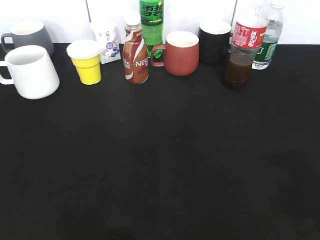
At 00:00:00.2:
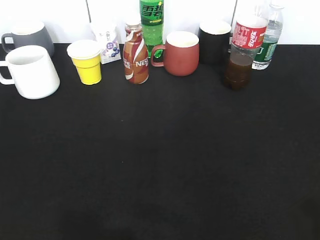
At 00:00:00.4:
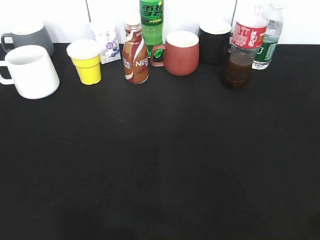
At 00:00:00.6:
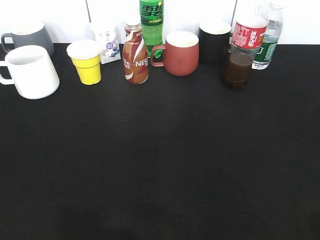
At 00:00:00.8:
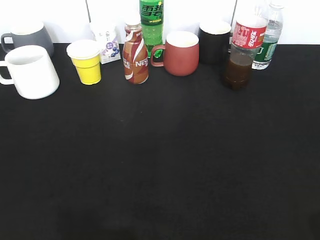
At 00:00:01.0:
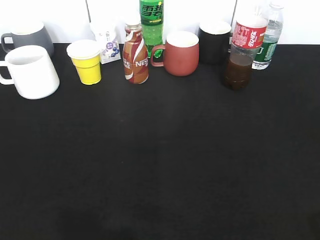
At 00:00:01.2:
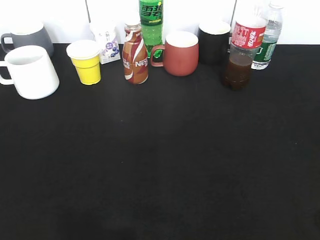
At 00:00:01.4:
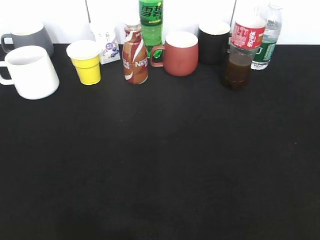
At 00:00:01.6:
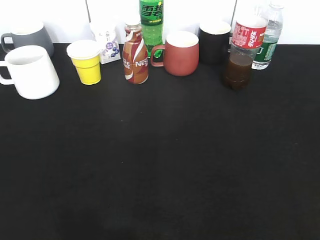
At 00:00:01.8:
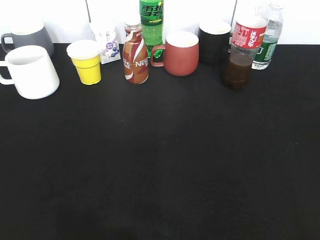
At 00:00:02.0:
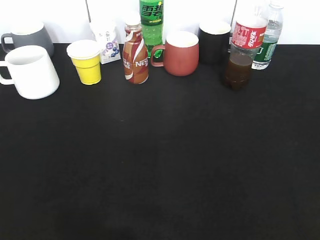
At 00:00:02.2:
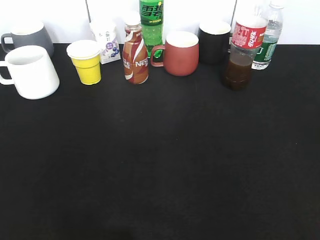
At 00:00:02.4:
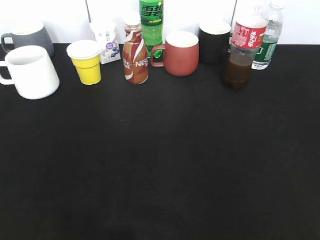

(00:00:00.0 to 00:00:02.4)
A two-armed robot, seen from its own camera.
00:00:00.0 - 00:00:01.2: The grippers both shift backward and downward by about 10 cm.

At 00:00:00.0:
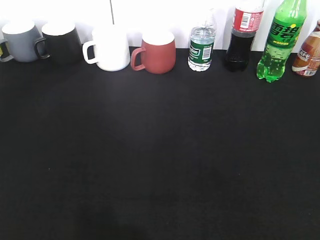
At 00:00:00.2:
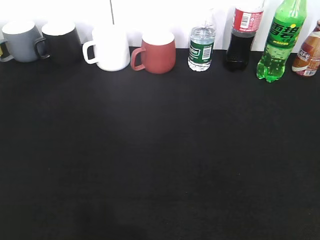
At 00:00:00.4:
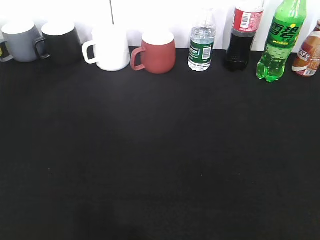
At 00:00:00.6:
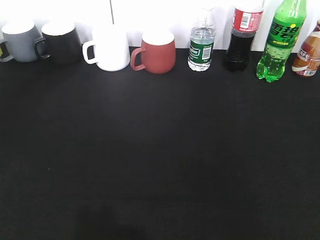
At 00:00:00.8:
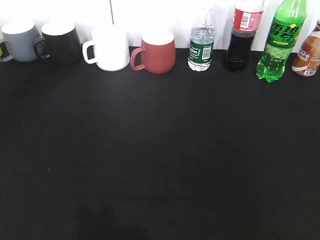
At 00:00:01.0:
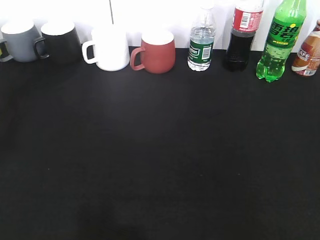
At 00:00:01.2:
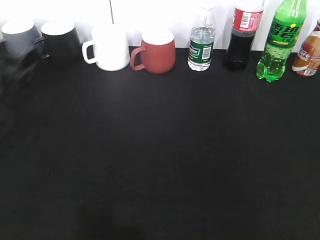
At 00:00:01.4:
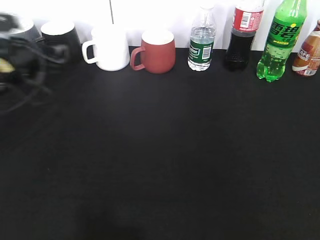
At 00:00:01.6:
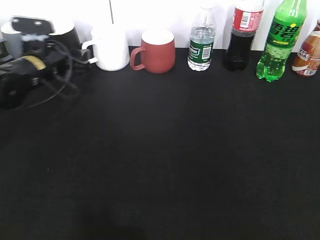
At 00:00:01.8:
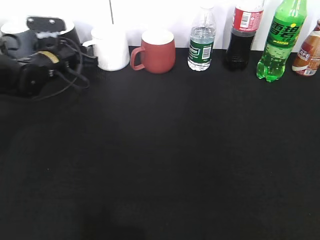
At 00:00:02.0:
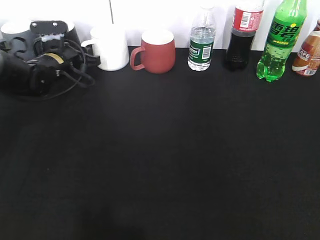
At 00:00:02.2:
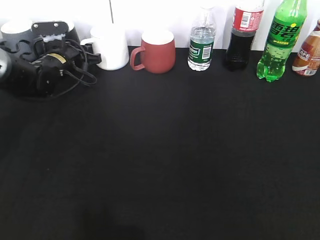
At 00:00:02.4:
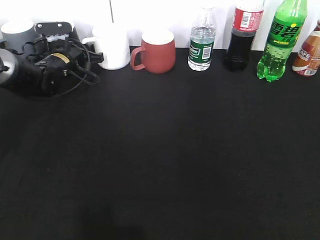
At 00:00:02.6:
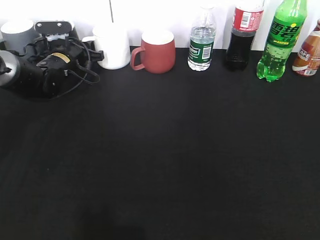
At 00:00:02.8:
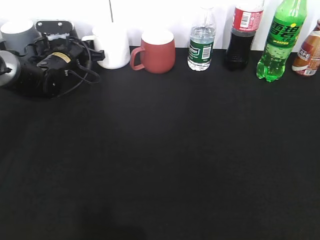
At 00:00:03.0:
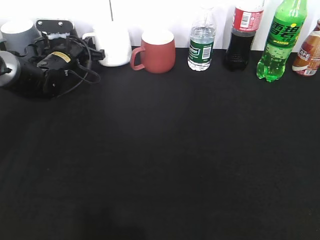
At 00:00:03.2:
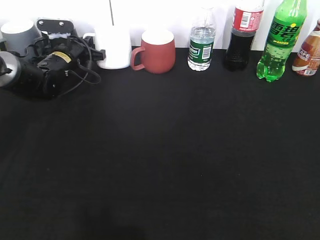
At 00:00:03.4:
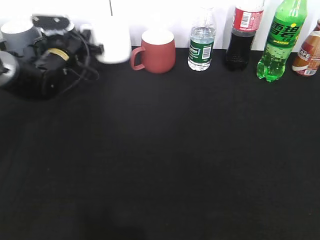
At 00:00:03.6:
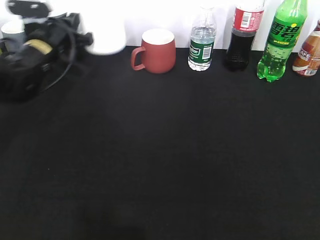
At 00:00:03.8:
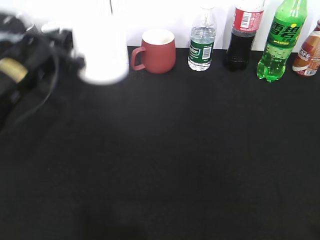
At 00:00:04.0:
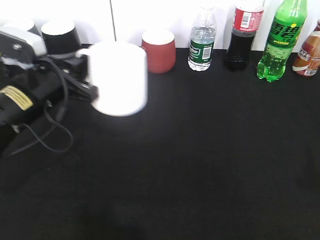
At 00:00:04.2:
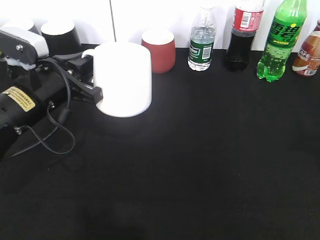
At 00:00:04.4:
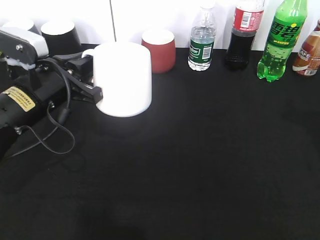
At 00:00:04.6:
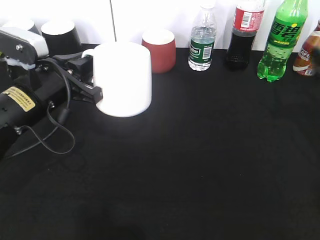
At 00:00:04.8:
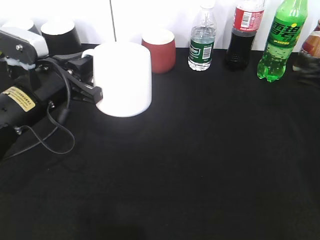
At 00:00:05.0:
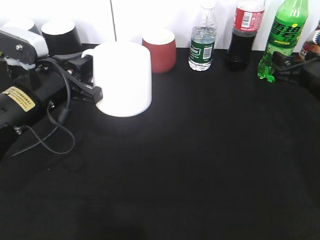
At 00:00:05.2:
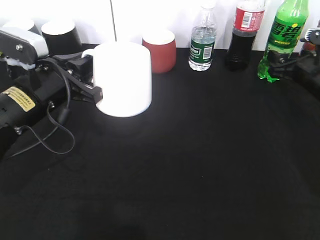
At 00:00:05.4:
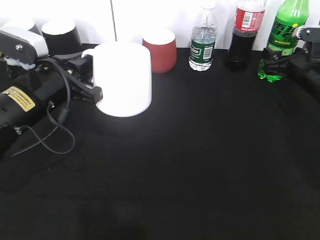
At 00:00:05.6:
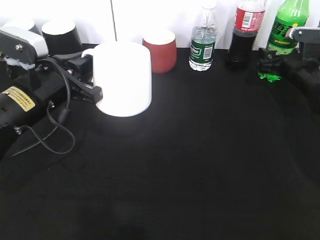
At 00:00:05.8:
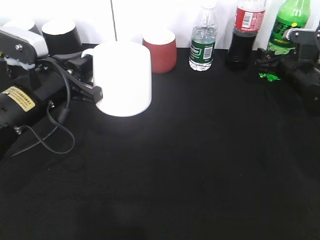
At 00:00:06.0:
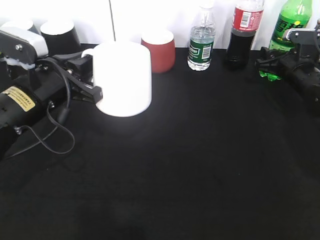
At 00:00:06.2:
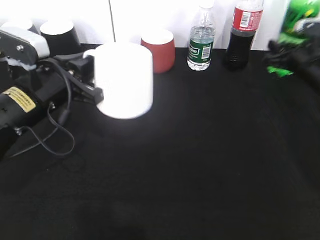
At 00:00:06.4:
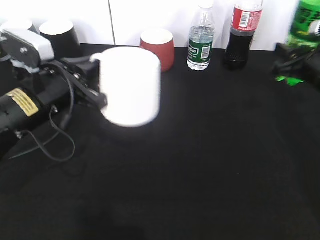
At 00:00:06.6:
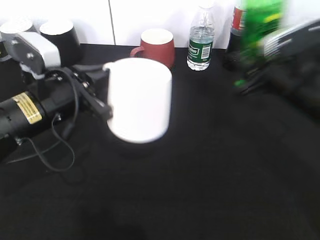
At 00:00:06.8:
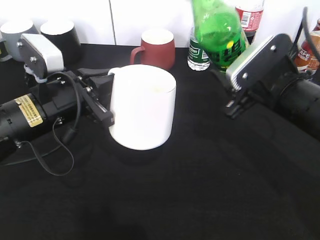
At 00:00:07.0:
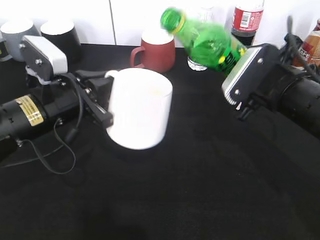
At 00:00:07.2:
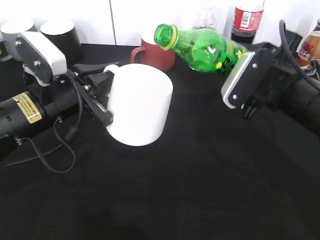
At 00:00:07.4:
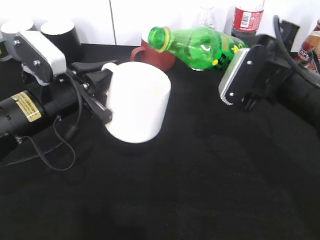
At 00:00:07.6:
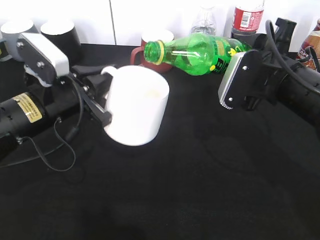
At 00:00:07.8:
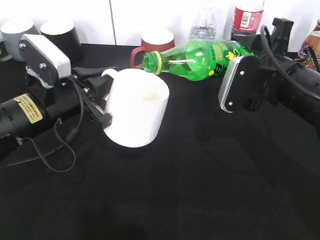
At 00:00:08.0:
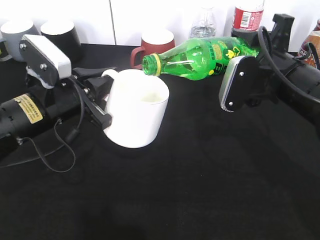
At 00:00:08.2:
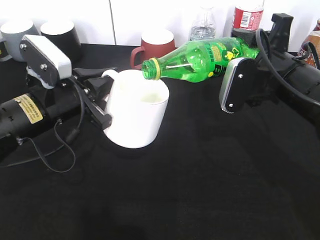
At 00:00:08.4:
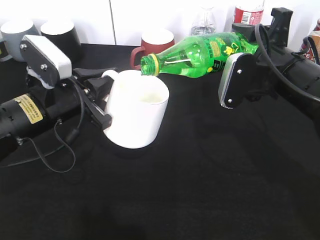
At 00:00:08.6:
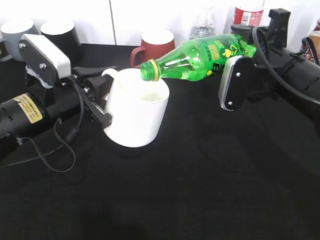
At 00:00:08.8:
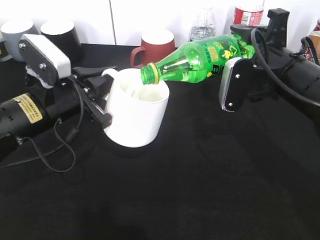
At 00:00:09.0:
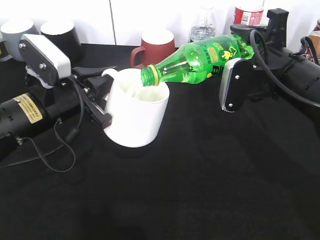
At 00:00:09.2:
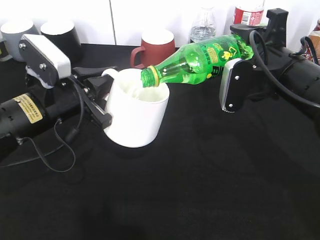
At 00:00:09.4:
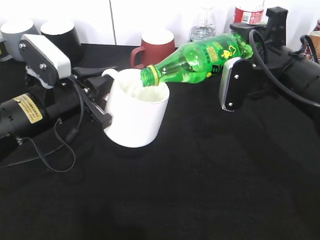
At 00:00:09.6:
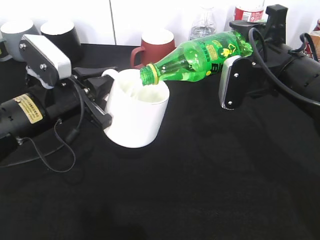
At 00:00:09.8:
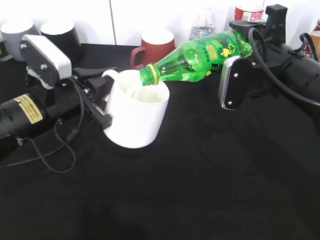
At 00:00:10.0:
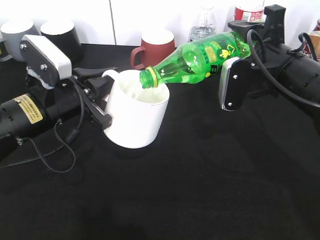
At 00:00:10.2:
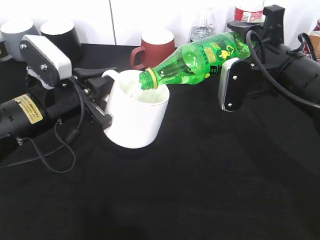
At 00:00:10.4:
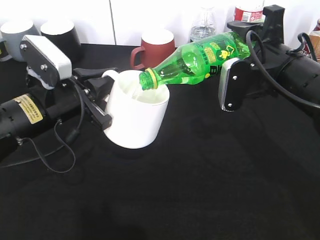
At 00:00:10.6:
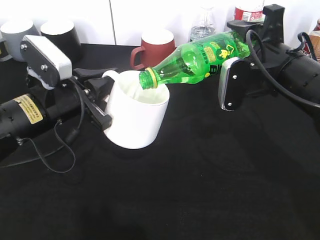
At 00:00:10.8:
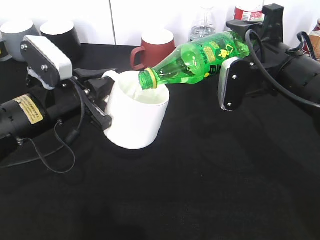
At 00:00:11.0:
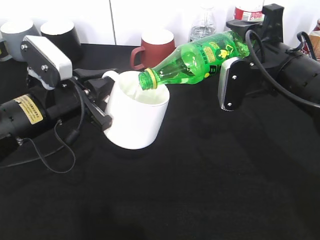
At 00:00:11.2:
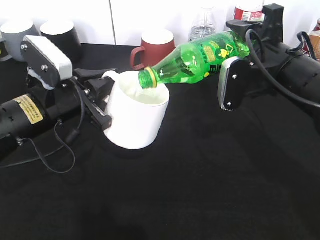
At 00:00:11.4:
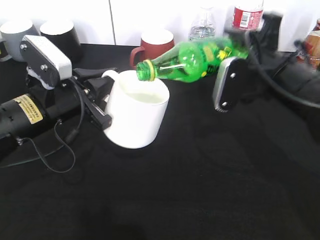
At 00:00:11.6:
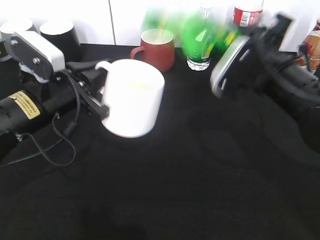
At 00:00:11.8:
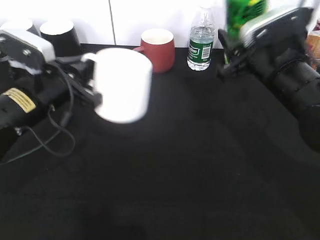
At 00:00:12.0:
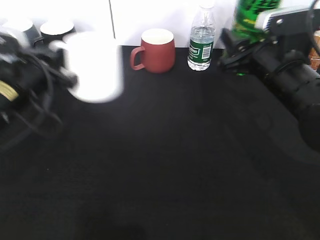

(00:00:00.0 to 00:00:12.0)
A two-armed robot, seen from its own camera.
Step, 00:00:00.0 - 00:00:02.8: Grasp the white cup with left gripper.
Step, 00:00:03.0 - 00:00:04.4: Lift the white cup with left gripper.
Step, 00:00:04.6 - 00:00:05.8: Grasp the bottle with sprite with right gripper.
Step, 00:00:06.0 - 00:00:11.4: Pour the sprite from bottle to cup with right gripper.
00:00:00.0 - 00:00:01.6: The left gripper moves forward, roughly 40 cm.
00:00:01.6 - 00:00:03.0: The left gripper heads forward, covering about 10 cm, and closes up.
00:00:03.0 - 00:00:04.4: The left gripper is displaced backward by roughly 20 cm. The right gripper goes about 25 cm forward.
00:00:04.4 - 00:00:06.0: The right gripper goes about 25 cm forward and downward, and closes.
00:00:06.0 - 00:00:07.6: The right gripper shifts about 20 cm backward, to the left and upward.
00:00:07.6 - 00:00:09.0: The grippers make only small movements.
00:00:09.0 - 00:00:10.4: The two grippers keep their place.
00:00:10.4 - 00:00:12.0: The left gripper moves to the left, about 5 cm.

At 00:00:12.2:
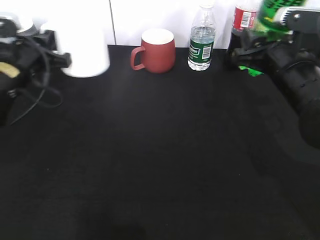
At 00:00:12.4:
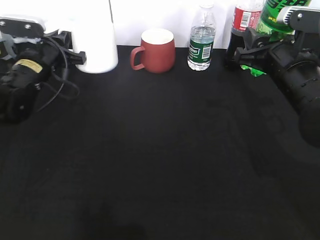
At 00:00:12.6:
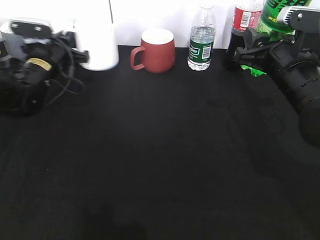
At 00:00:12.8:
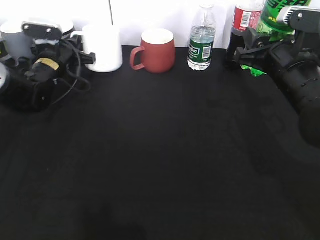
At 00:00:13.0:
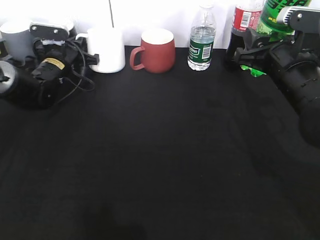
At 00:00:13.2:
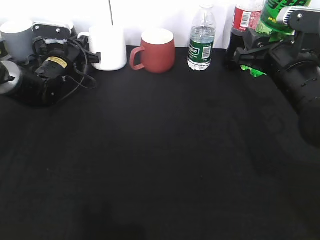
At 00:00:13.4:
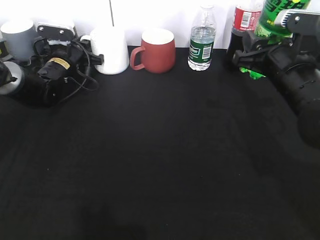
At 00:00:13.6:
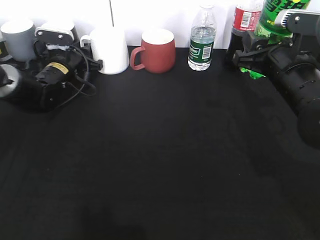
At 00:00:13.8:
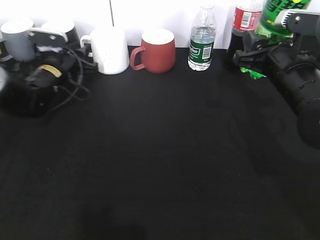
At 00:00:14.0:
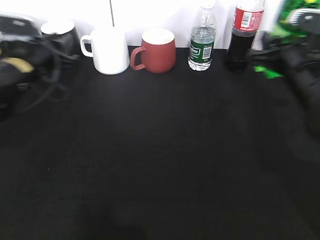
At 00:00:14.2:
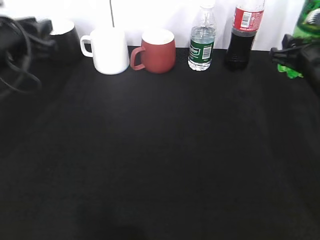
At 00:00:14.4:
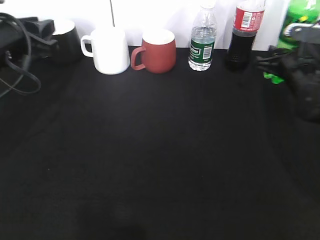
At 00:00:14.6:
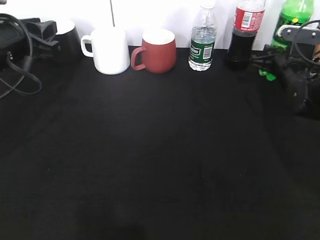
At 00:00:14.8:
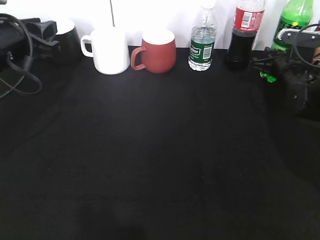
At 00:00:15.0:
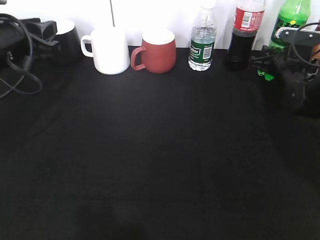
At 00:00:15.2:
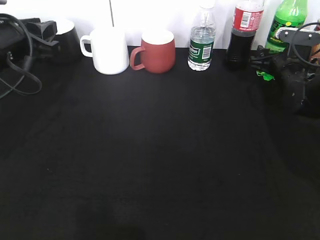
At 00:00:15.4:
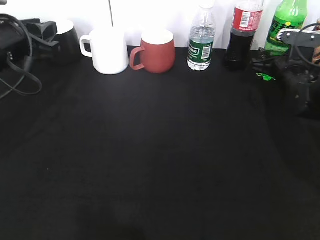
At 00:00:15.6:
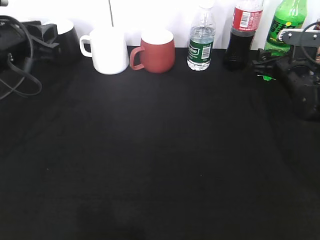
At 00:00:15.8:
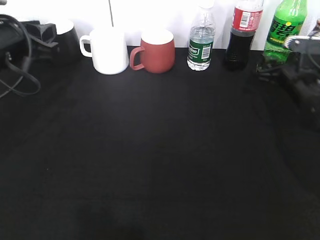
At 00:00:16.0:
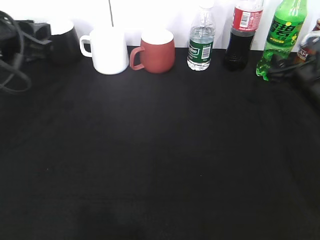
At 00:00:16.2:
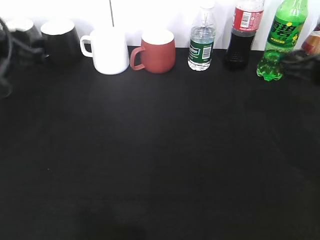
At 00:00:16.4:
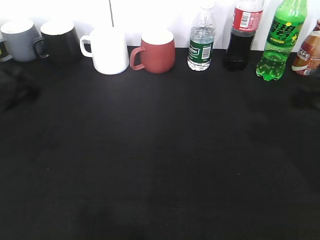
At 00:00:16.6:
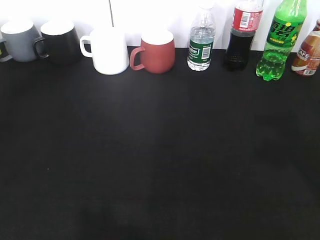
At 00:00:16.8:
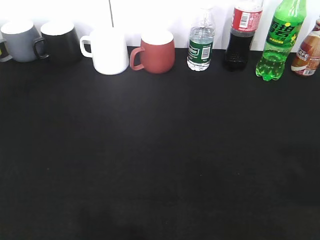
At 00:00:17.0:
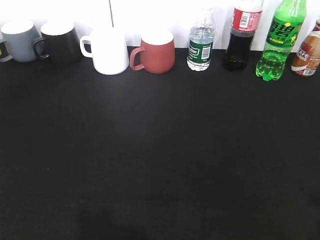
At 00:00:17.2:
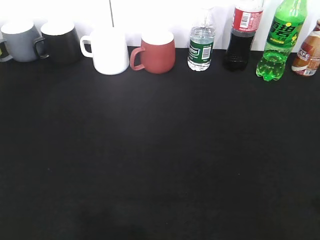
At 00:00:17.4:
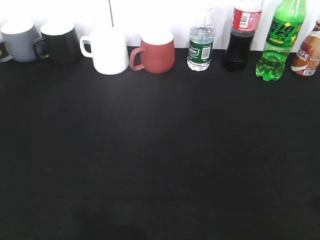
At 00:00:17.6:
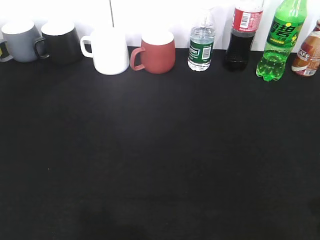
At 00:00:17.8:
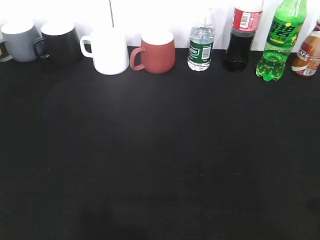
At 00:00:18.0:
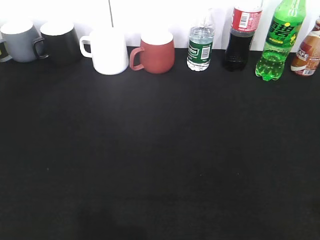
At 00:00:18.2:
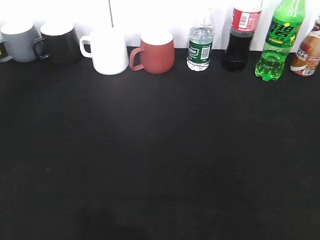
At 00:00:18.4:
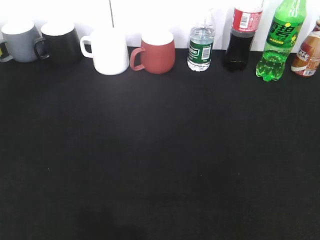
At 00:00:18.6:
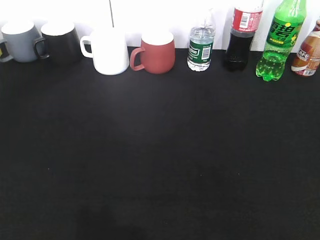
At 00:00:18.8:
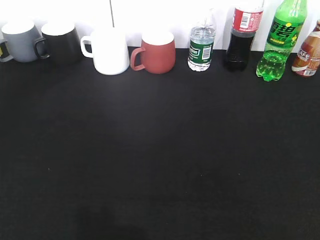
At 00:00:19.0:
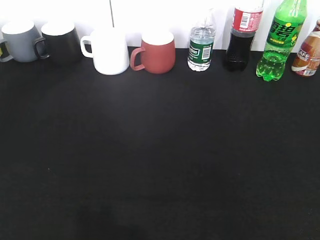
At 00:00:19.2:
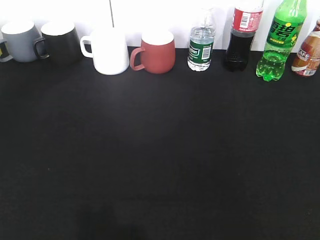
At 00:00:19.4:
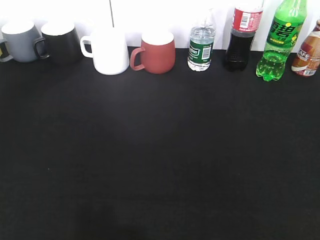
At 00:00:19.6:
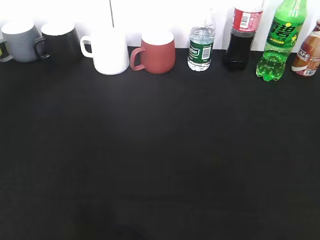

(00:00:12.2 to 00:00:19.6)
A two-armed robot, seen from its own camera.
Step, 00:00:12.2 - 00:00:16.0: Place the sprite bottle on the table with right gripper.
00:00:12.2 - 00:00:13.6: The left gripper shifts approximately 15 cm forward and downward, and opens up.
00:00:13.6 - 00:00:15.2: The right gripper shifts approximately 15 cm forward, downward and to the right, and opens; the left gripper heads backward and upward, covering some 20 cm.
00:00:15.2 - 00:00:16.6: The left gripper moves backward and upward, some 20 cm, and opens, while the right gripper goes roughly 35 cm backward and upward.
00:00:16.6 - 00:00:18.2: The right gripper heads backward, covering some 20 cm, while the left gripper shifts approximately 15 cm backward and to the left.
00:00:18.2 - 00:00:19.6: The grippers move only a little.
